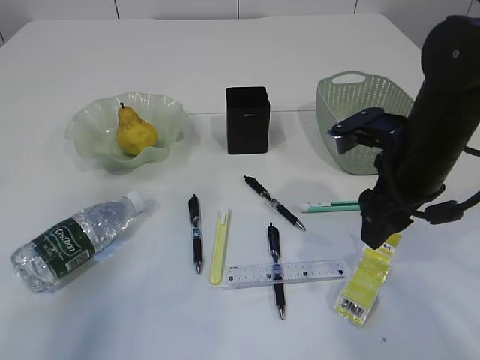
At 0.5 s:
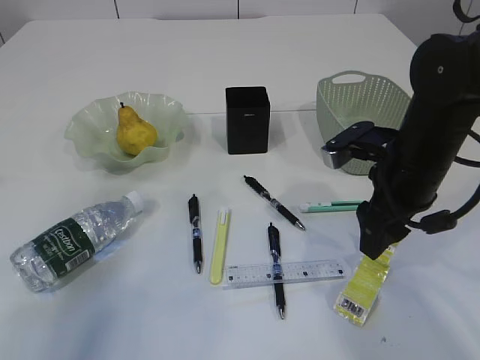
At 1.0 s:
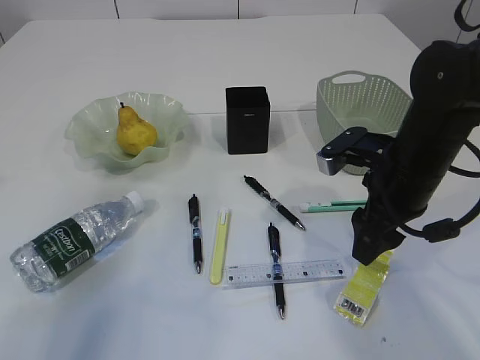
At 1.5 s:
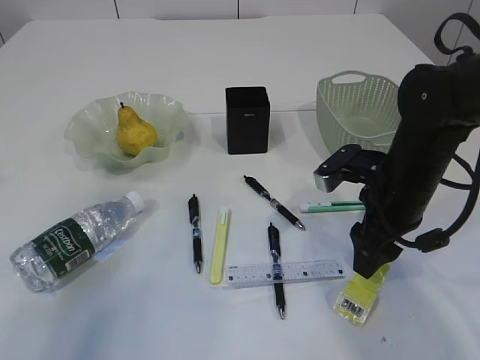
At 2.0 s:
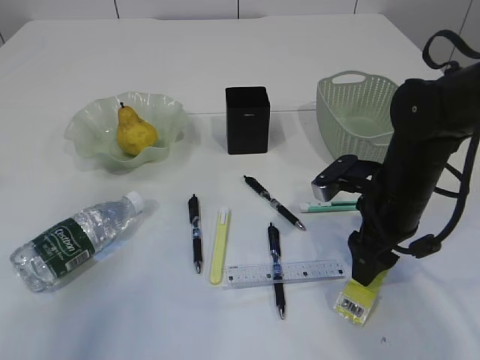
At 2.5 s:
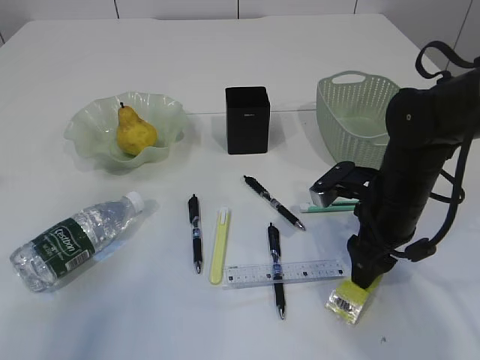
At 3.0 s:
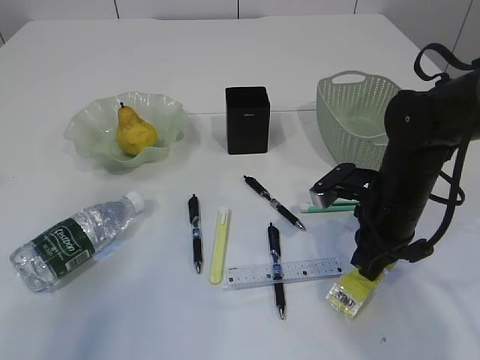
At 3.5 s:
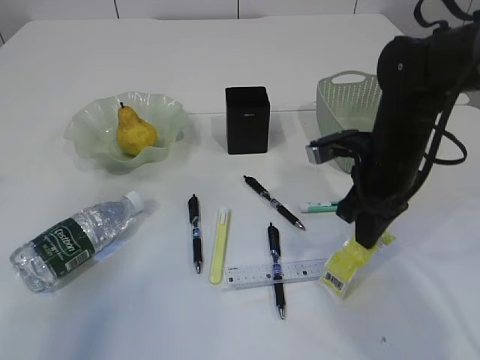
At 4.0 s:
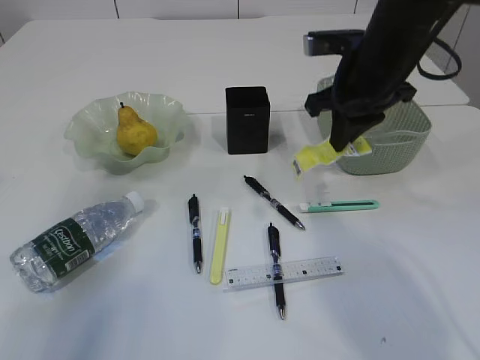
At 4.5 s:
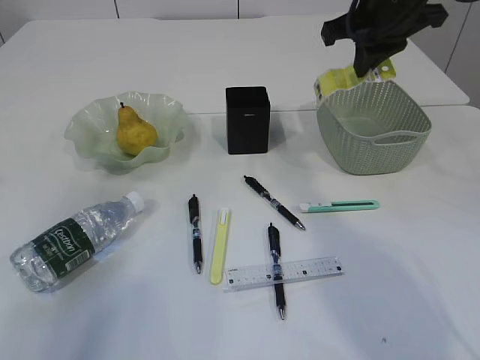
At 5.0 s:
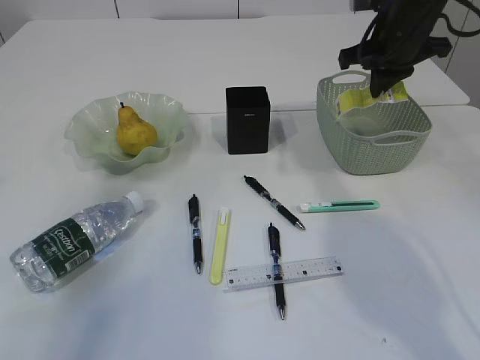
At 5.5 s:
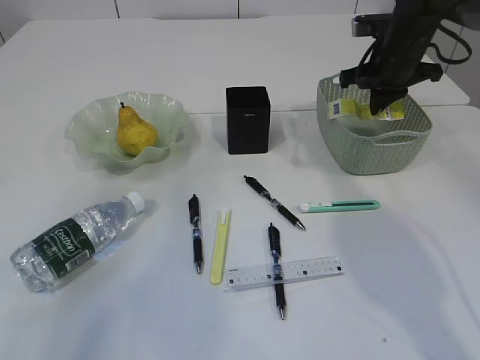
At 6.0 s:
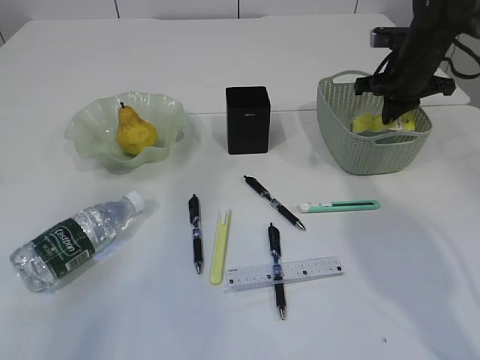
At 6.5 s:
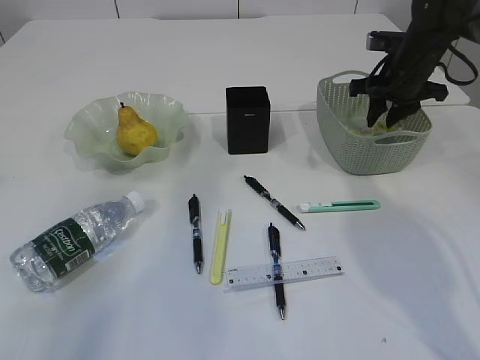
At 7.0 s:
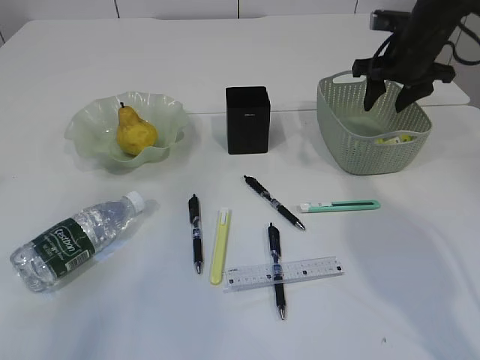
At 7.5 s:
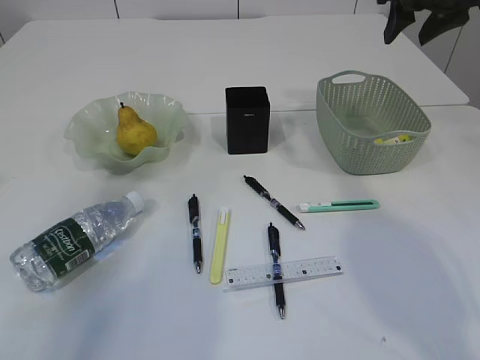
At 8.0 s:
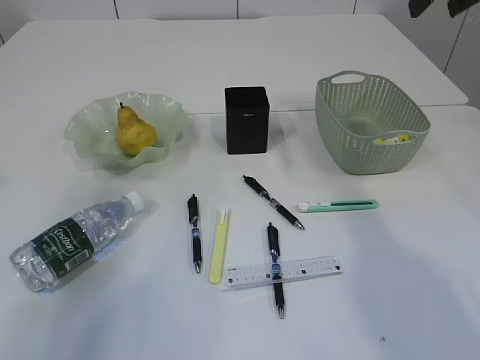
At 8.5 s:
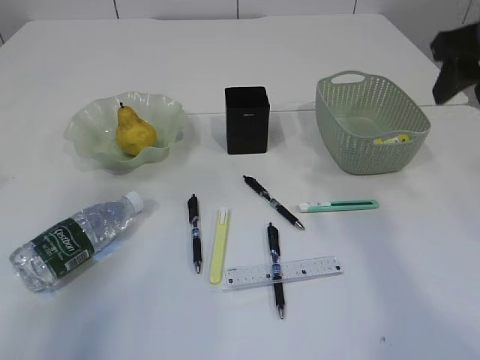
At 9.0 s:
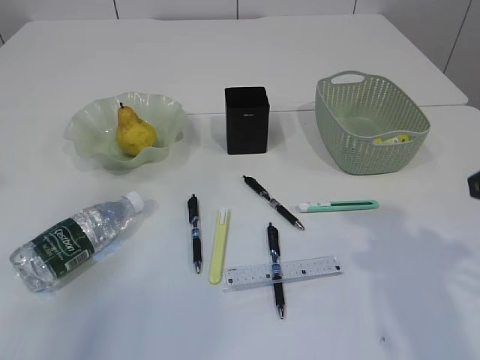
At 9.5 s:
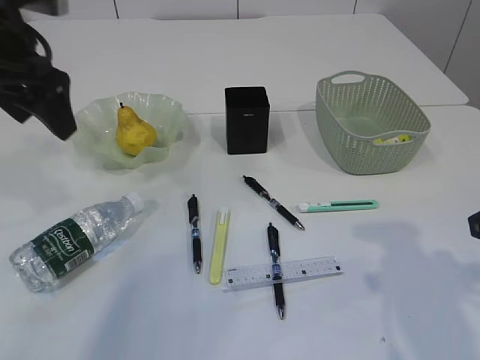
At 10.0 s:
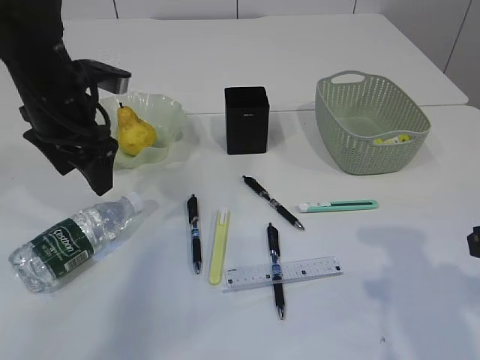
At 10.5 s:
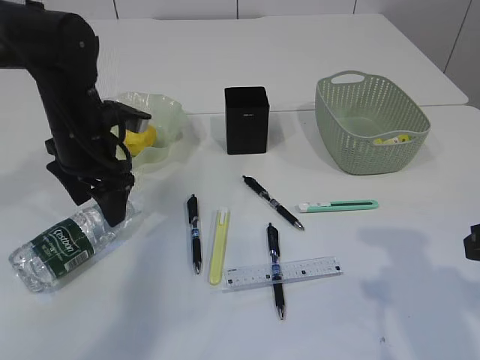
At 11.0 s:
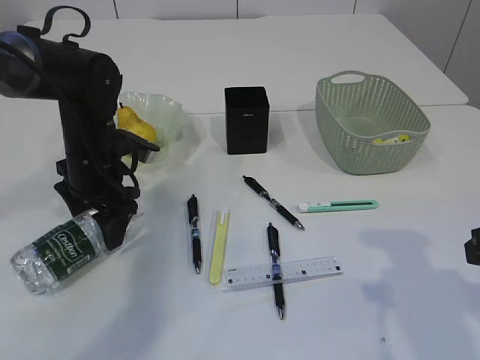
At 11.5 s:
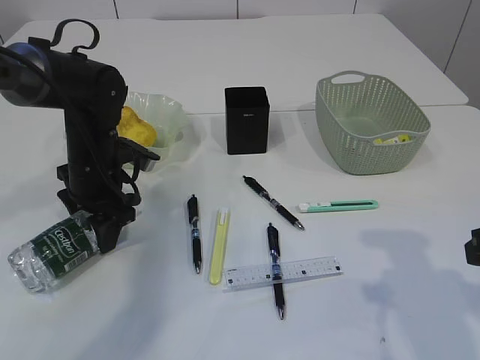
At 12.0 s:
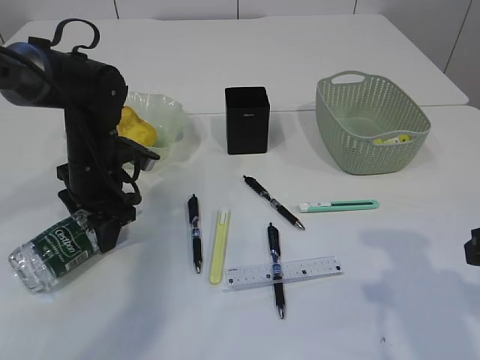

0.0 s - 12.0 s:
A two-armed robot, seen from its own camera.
Step, 0.0 s - 3.5 s: Pick up the plastic.
Step, 4.0 s - 7.5 s: Place the plastic in the basket.
0.0 s - 2.0 s: The right gripper goes some 5 cm downward.
2.0 s - 4.0 s: The right gripper travels upward and forward by approximately 15 cm, and closes.
4.0 s - 6.0 s: The right gripper is displaced to the right and forward by about 15 cm.
6.0 s - 8.0 s: The right gripper travels upward and backward by about 20 cm, and opens up.
8.0 s - 10.0 s: The left gripper travels downward and to the right by about 15 cm, and opens. The right gripper heads backward and downward, covering roughly 30 cm.
10.0 s - 12.0 s: The left gripper goes some 10 cm downward, and closes up.

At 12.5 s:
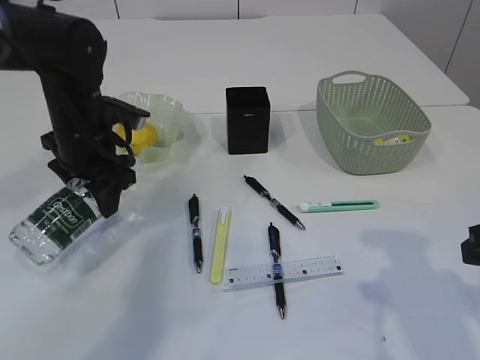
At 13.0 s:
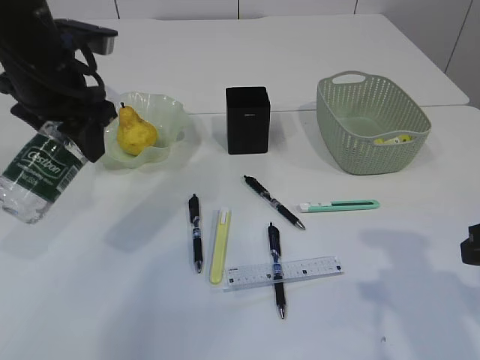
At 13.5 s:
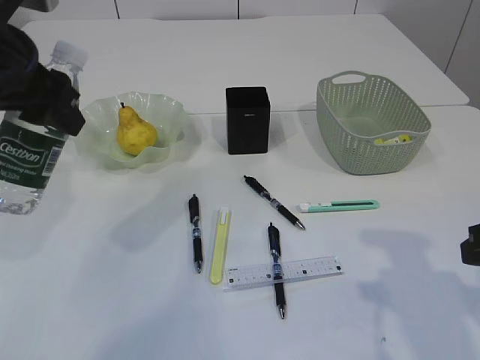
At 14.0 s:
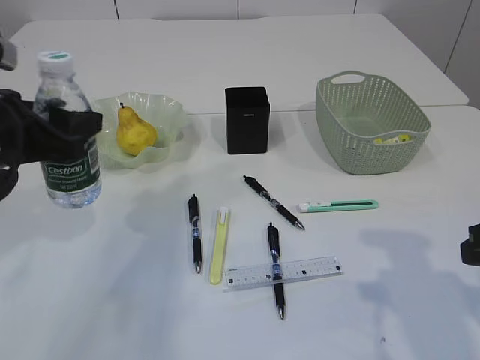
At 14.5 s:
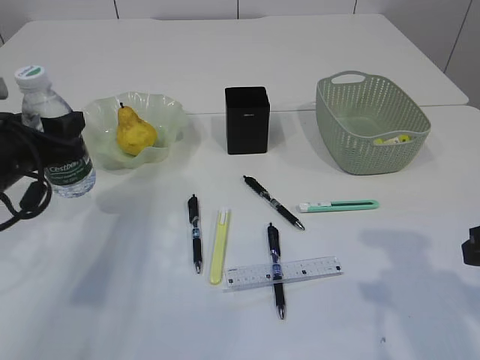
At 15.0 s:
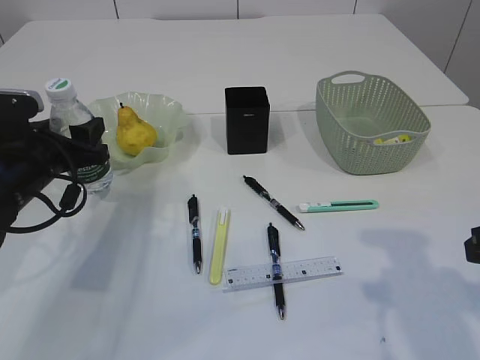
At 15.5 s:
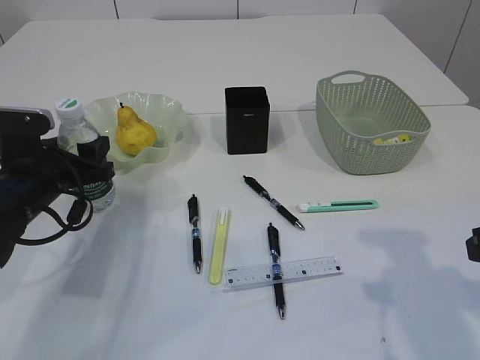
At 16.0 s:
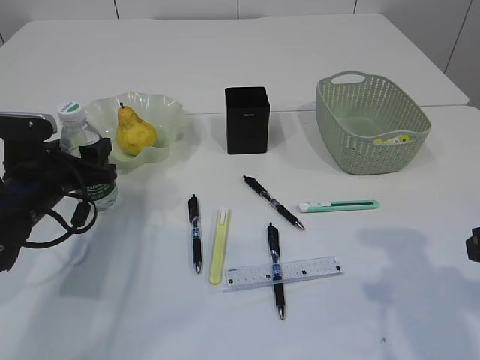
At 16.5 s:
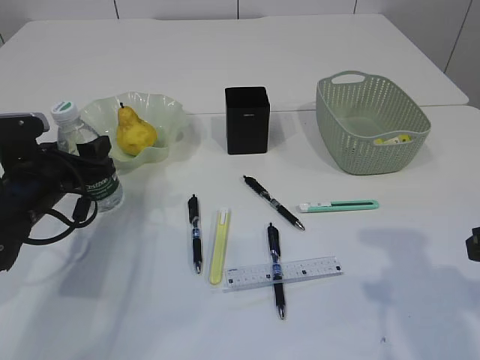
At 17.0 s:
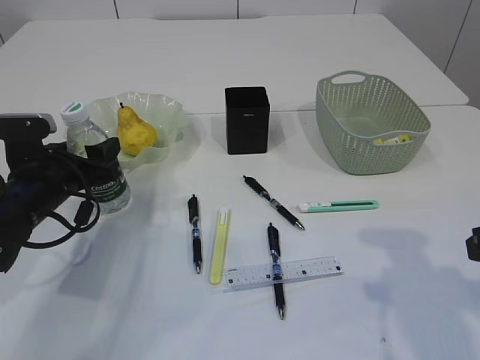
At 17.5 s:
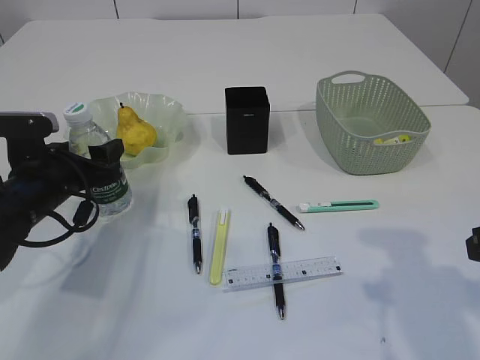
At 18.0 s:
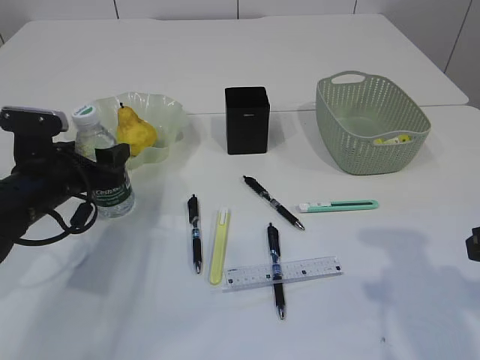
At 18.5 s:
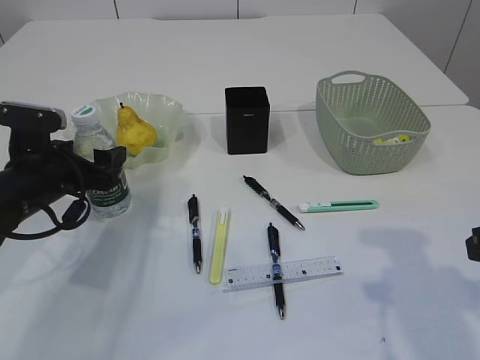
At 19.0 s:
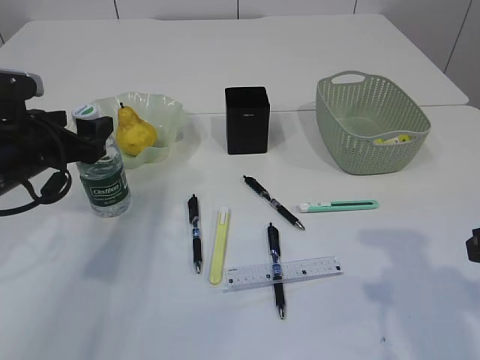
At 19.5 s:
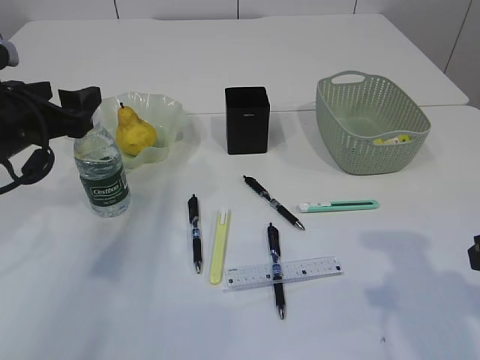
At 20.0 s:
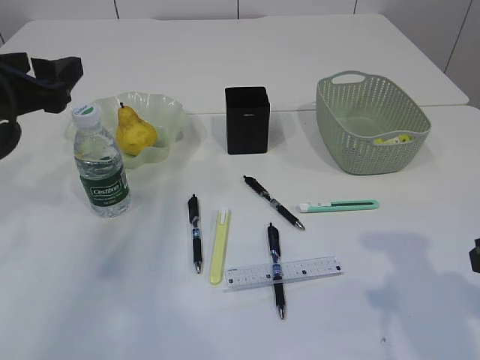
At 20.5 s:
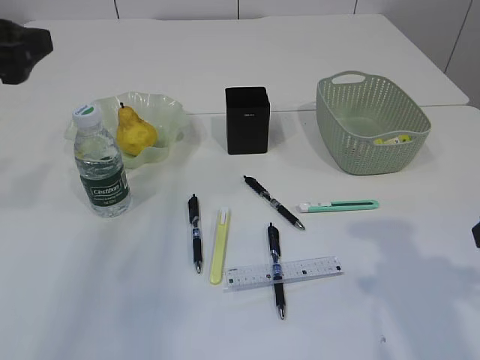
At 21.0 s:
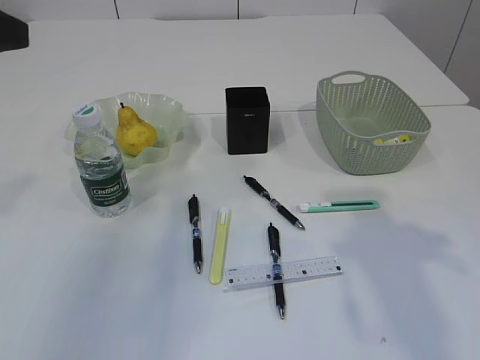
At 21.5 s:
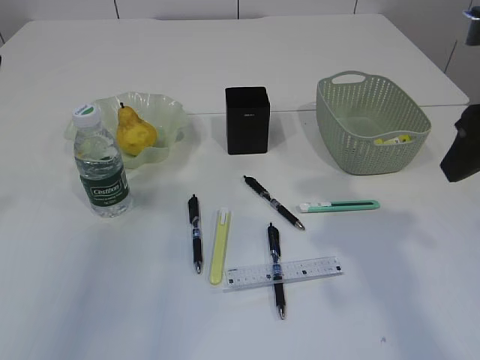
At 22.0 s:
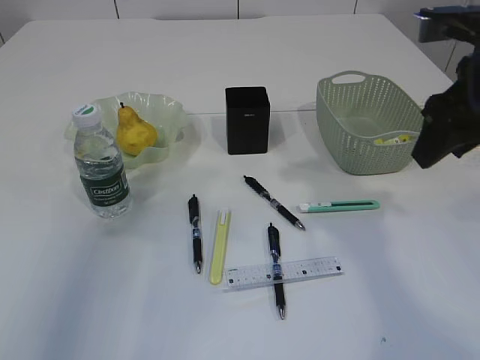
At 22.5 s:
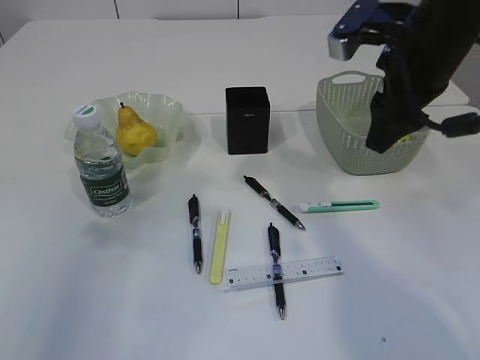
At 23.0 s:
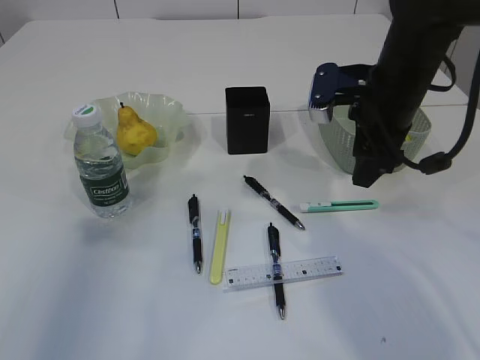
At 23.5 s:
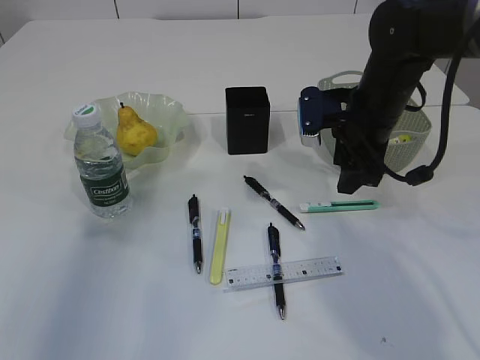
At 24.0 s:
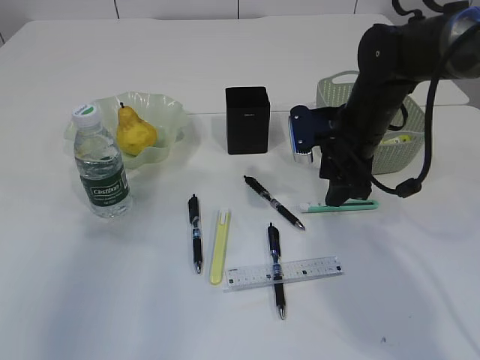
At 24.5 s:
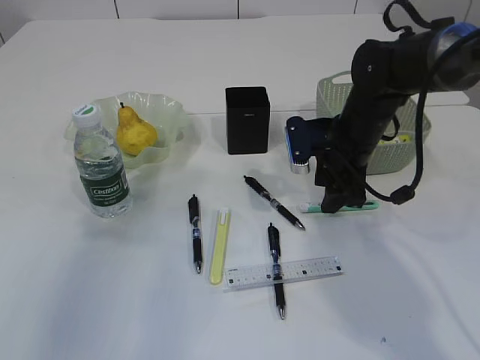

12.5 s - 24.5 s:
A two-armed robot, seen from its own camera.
Step, 12.5 s - 19.5 s: Place the bottle.
12.5 s - 14.5 s: The left gripper goes about 10 cm backward and to the left, and reaches approximately 15 cm upward, then returns.
14.5 s - 16.5 s: The left gripper is displaced downward by approximately 5 cm.
16.5 s - 18.5 s: The left gripper opens its fingers.
18.5 s - 20.5 s: The left gripper heads upward, covering about 15 cm.
20.5 s - 22.5 s: The right gripper heads forward, to the left and upward, covering about 20 cm; the left gripper shifts some 5 cm backward.
22.5 s - 24.5 s: The right gripper travels downward and forward by about 15 cm.

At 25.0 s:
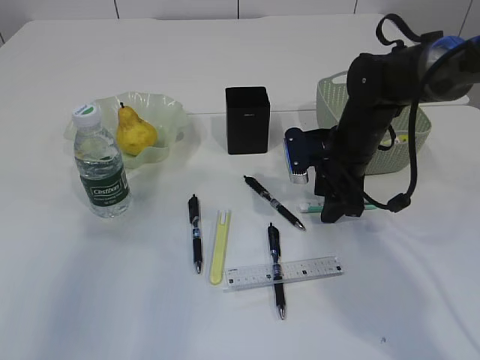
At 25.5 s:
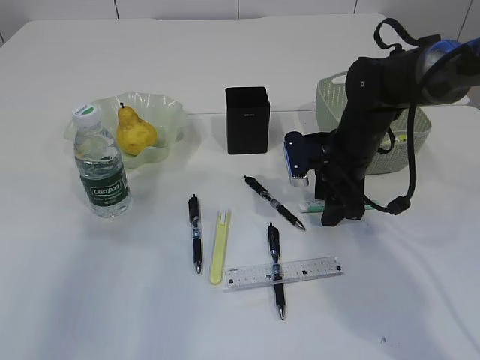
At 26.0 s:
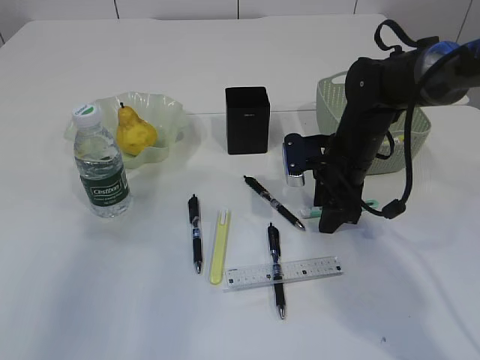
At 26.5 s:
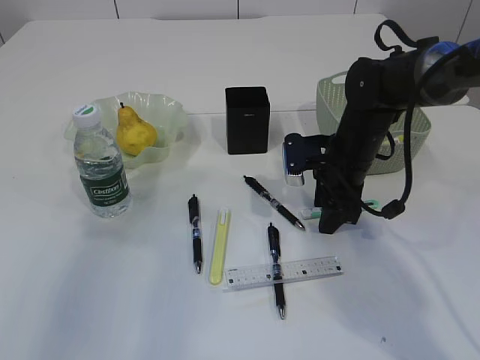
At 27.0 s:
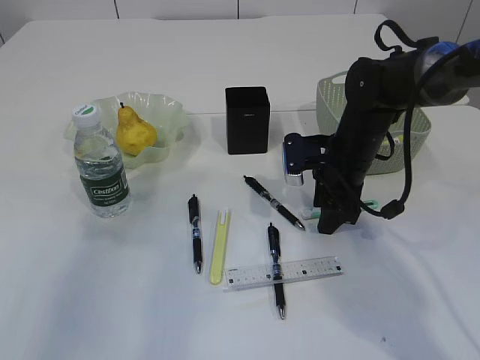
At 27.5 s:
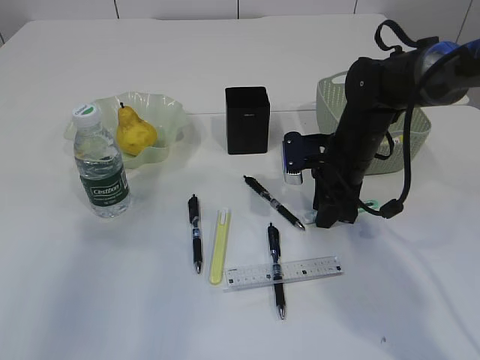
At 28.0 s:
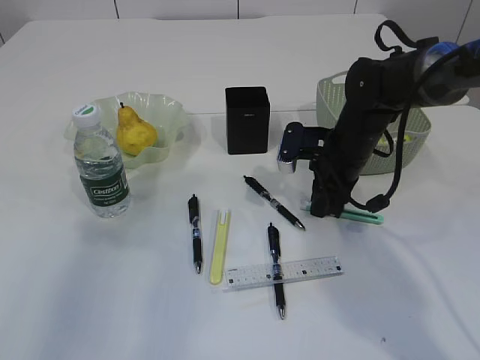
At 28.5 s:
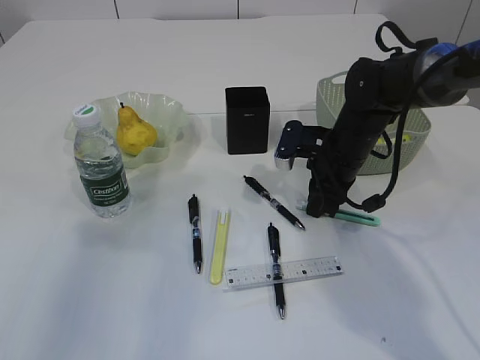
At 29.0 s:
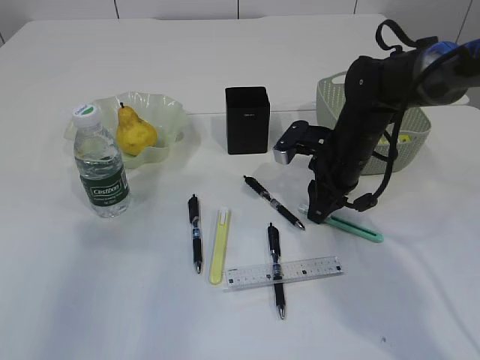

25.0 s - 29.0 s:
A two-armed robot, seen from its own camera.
25.0 s - 27.0 s: The grippers stay close to where they were, moving slightly.
27.0 s - 29.0 s: The right gripper closes.
